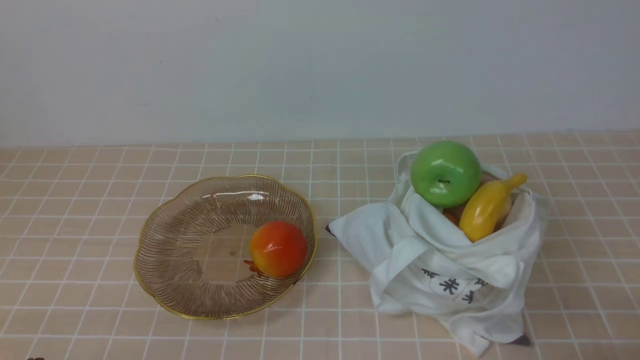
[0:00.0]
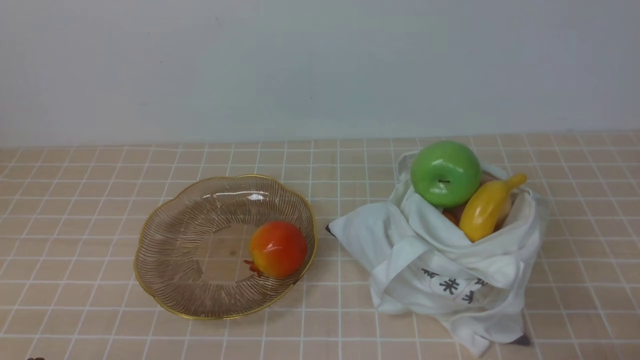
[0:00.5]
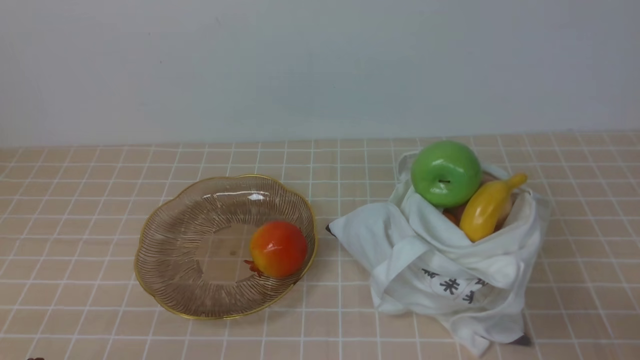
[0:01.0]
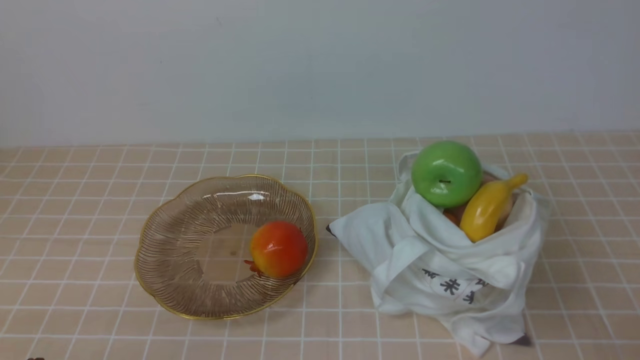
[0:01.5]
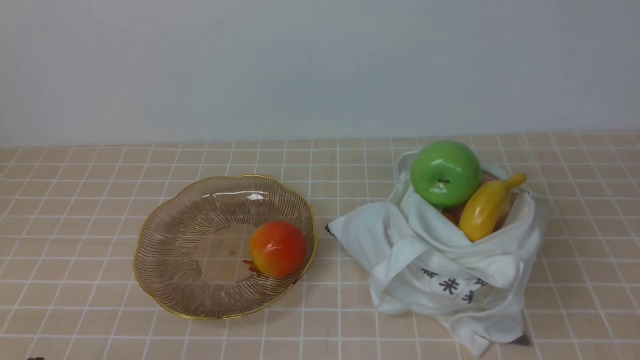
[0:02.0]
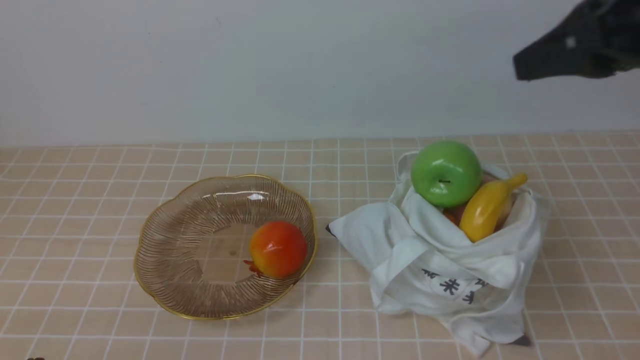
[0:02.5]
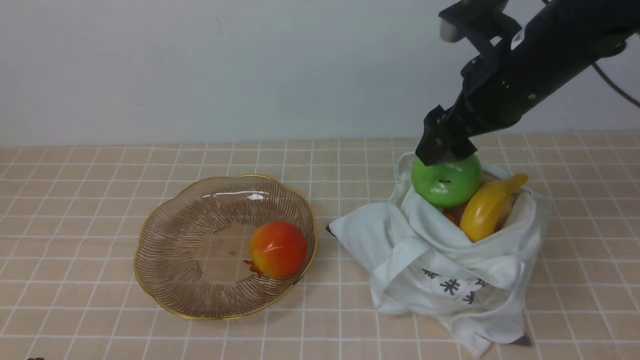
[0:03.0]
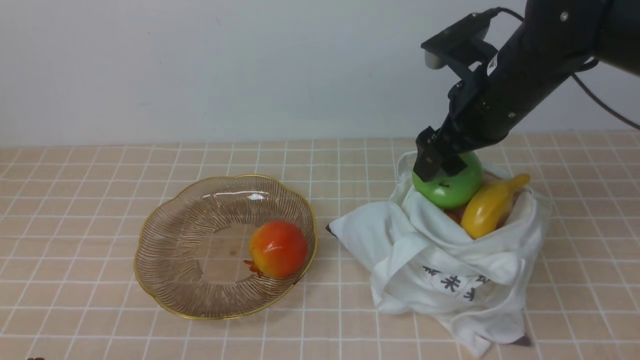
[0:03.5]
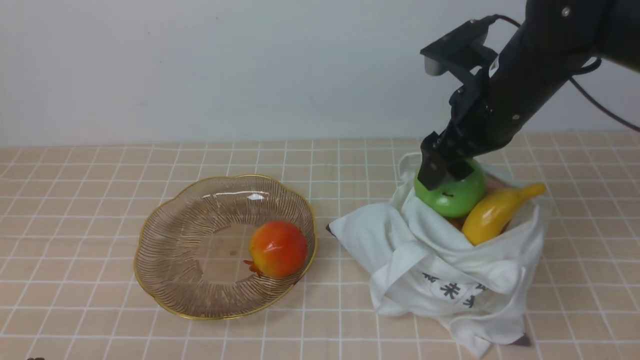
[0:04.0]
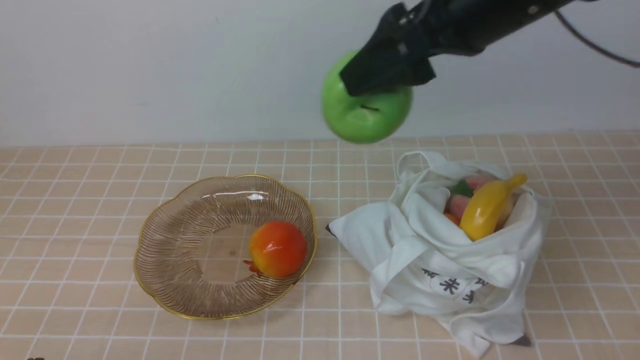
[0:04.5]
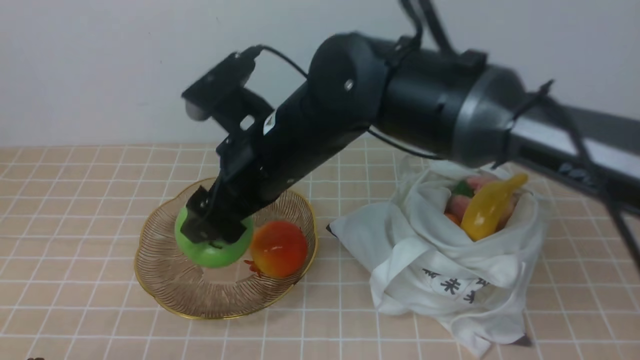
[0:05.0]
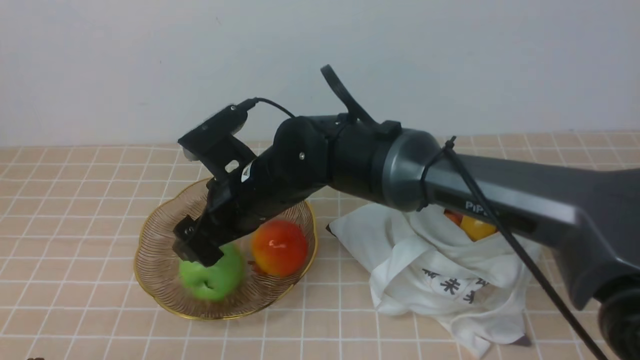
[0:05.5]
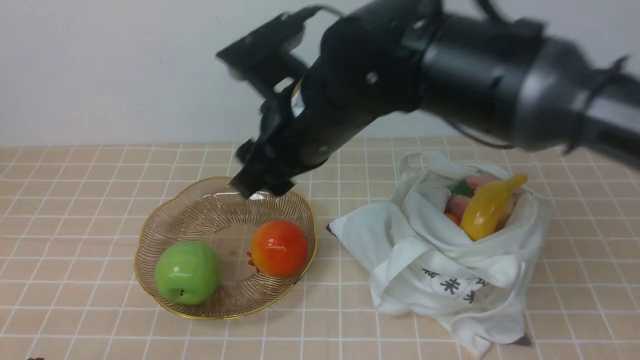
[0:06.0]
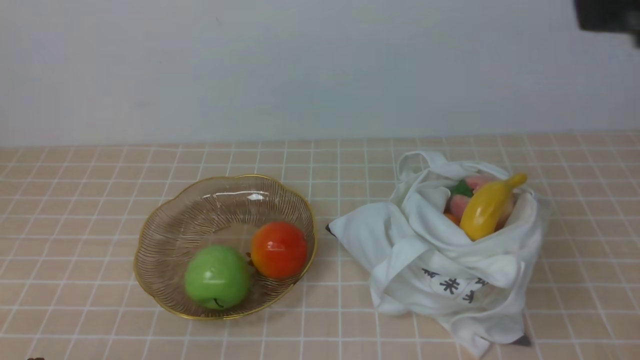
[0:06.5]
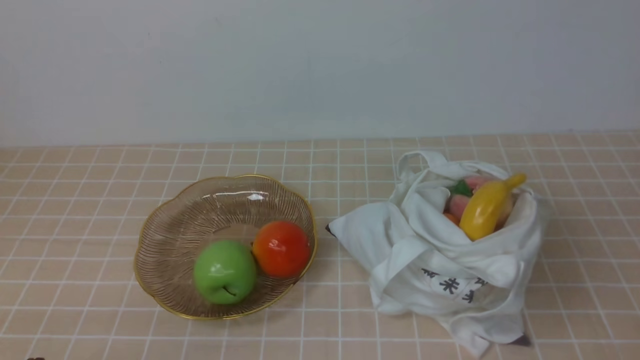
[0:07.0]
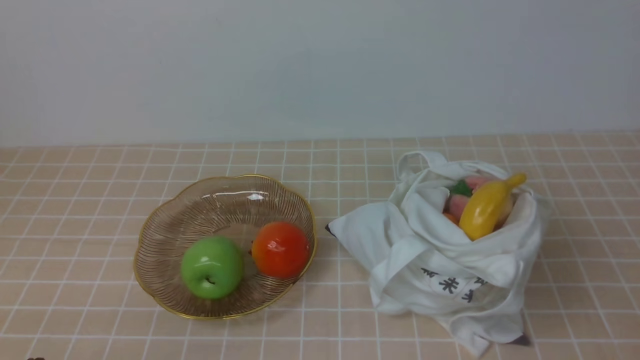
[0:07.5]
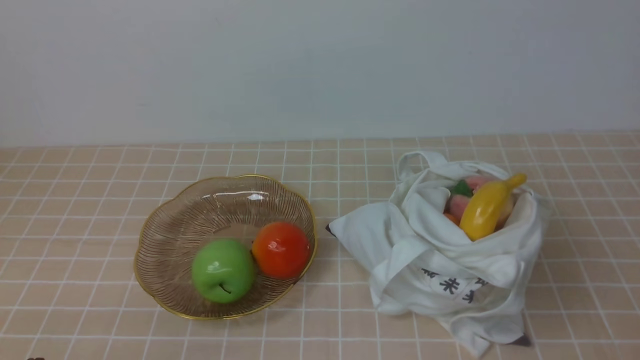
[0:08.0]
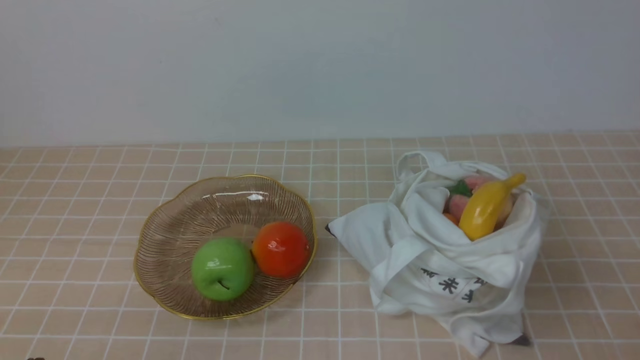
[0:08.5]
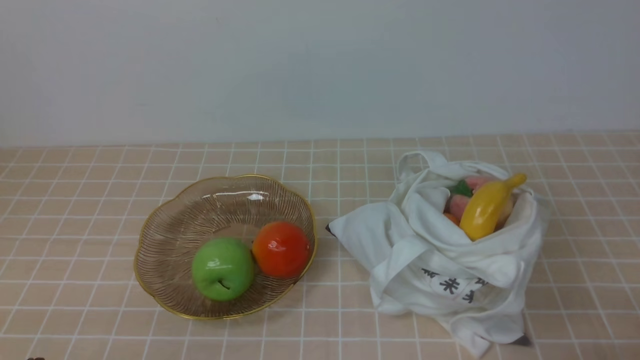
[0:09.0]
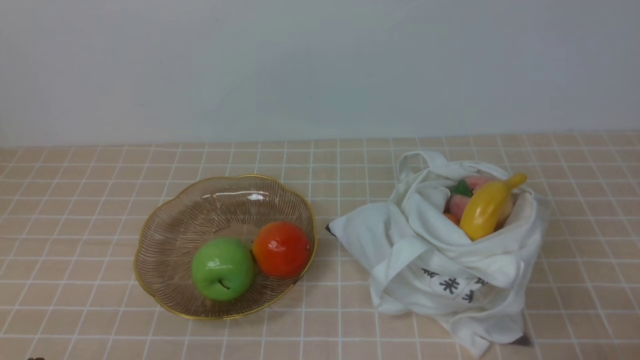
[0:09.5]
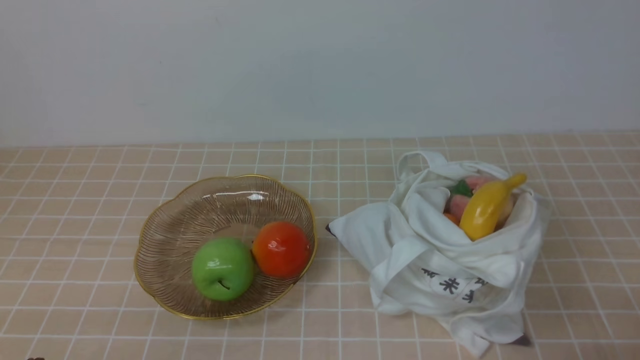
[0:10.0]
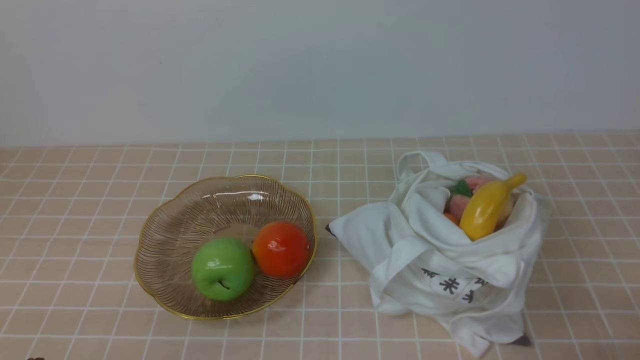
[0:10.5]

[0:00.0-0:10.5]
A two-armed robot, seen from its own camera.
Step, 0:00.0 to 0:04.0: use the right arm to grab an apple from the bag.
Step, 0:04.5 to 0:05.5: use the right arm to put the apple into the empty plate on the left.
0:02.0 to 0:04.0: The right gripper travels forward and to the left by approximately 30 cm, and opens its fingers.
0:04.0 to 0:06.5: The right gripper moves up and down over about 25 cm, changing direction 2 times, and closes its fingers.
0:06.5 to 0:08.5: The right gripper is displaced downward, backward and to the right by approximately 30 cm.
